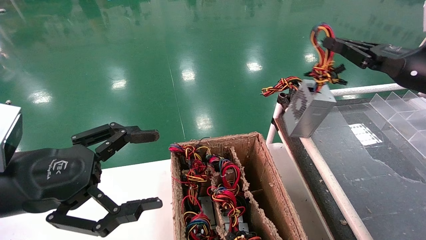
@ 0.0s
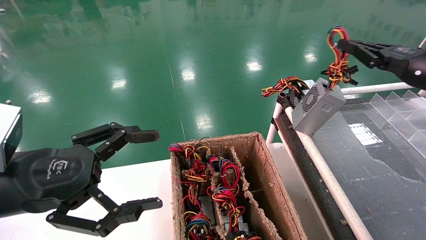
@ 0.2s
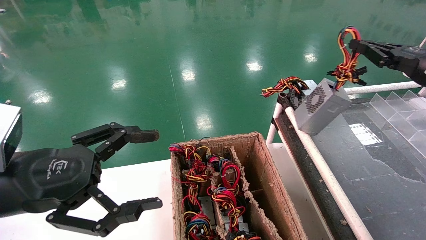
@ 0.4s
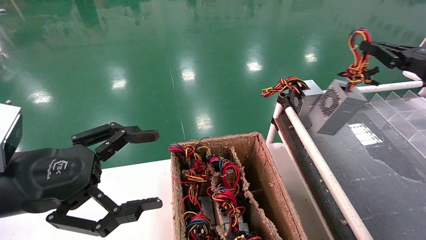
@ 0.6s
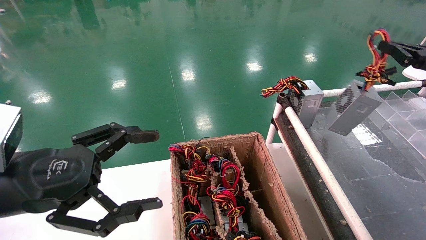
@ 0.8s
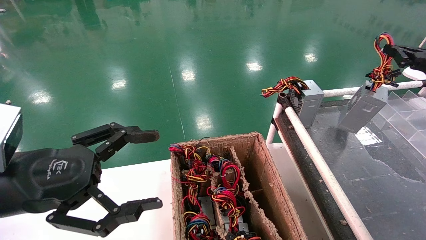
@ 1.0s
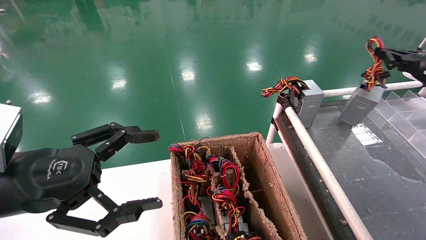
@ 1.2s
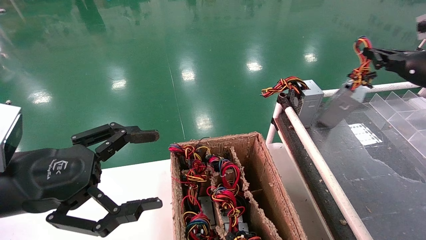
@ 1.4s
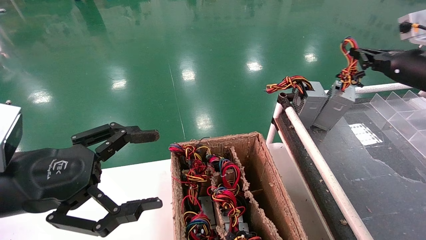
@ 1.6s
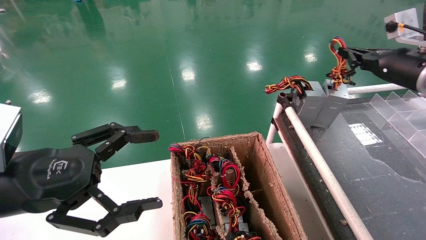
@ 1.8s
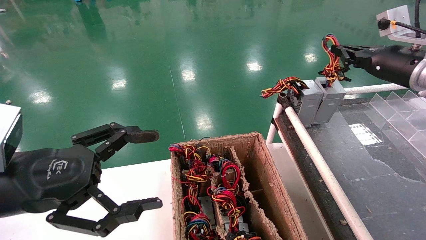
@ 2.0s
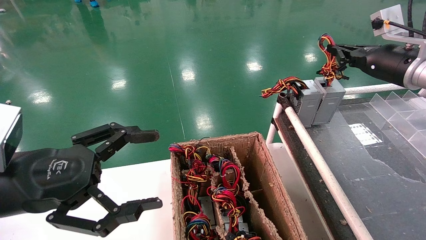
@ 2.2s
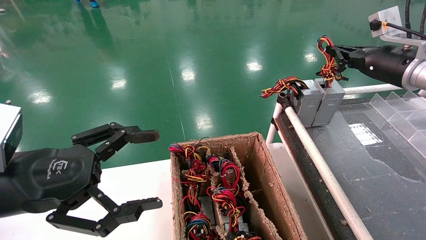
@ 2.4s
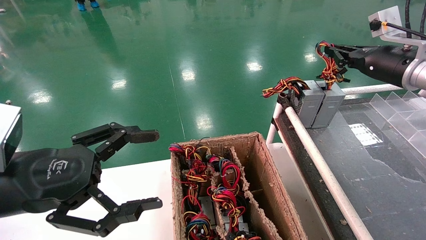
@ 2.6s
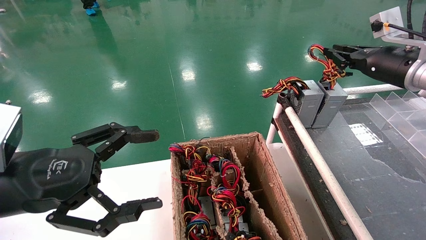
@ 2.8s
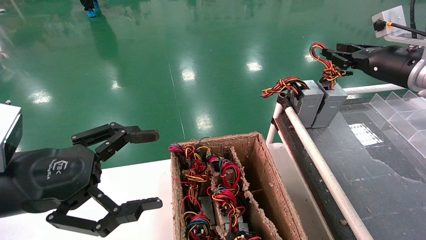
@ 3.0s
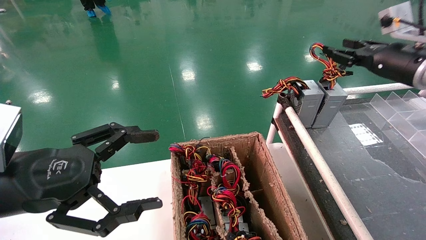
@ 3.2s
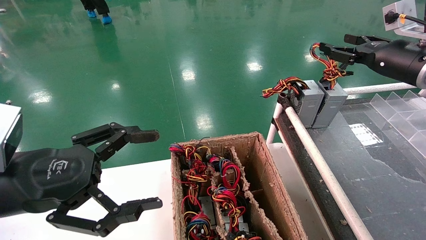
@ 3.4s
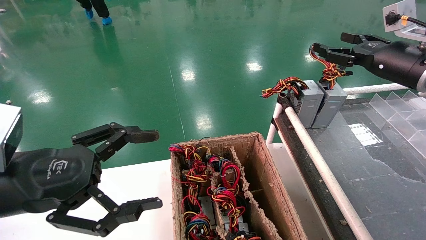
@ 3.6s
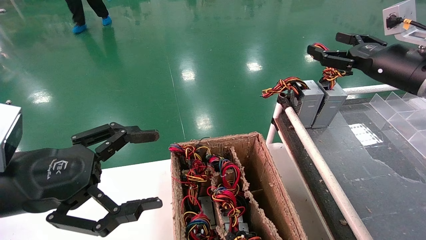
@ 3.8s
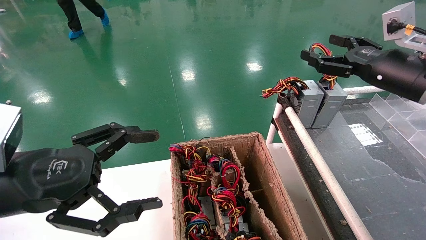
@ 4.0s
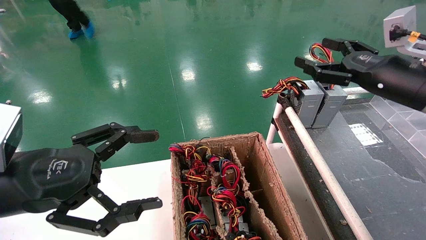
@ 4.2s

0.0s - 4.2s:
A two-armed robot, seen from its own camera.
Step, 0.0s - 2.6s: Place the power supply on the operating table.
0.0s - 1.4s: The right gripper shifts roughly 10 cm forward and to the right.
1.4s - 2.8s: The right gripper goes roughly 5 cm to the left.
2.8s - 4.2s: The right gripper goes about 10 cm backward, and opens its fingers.
